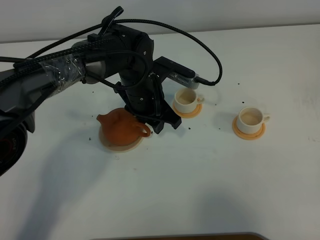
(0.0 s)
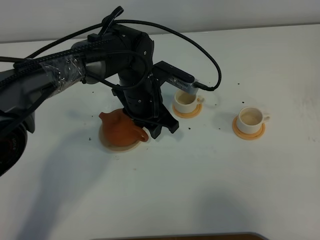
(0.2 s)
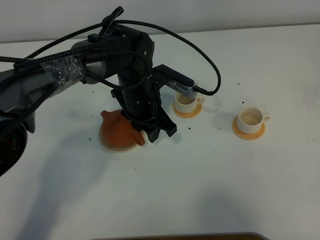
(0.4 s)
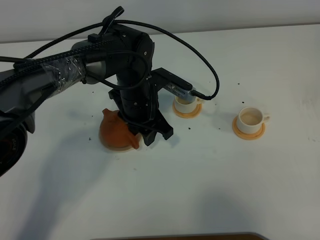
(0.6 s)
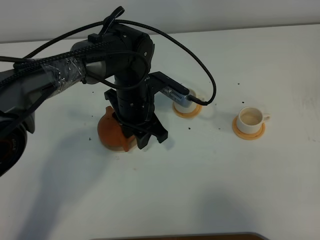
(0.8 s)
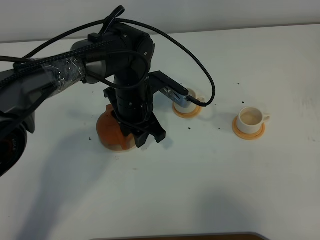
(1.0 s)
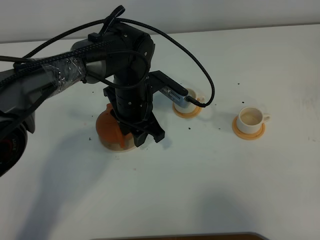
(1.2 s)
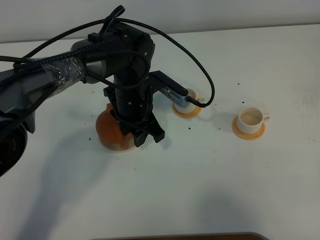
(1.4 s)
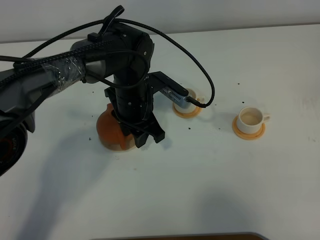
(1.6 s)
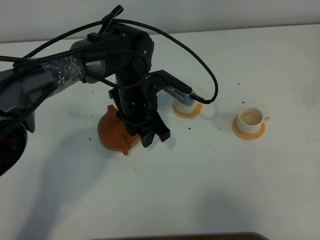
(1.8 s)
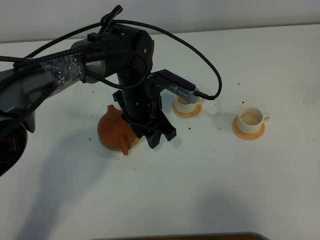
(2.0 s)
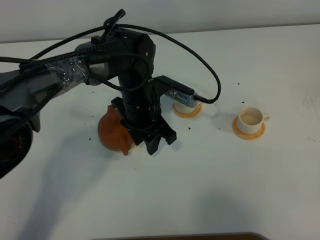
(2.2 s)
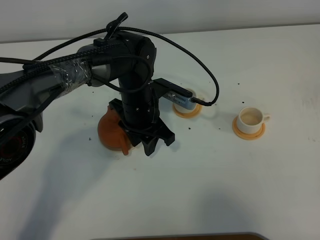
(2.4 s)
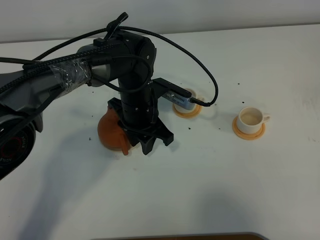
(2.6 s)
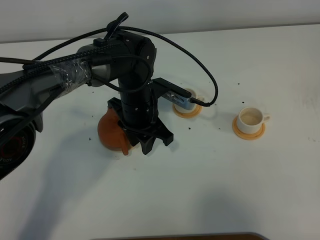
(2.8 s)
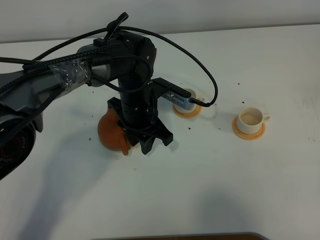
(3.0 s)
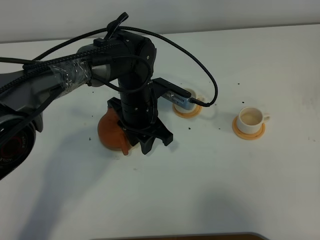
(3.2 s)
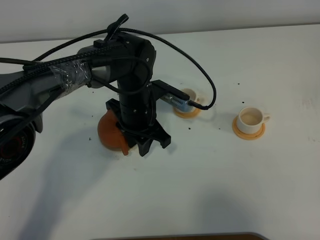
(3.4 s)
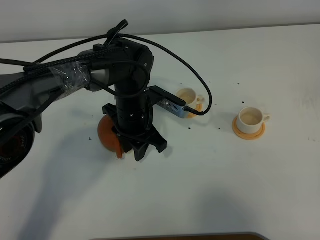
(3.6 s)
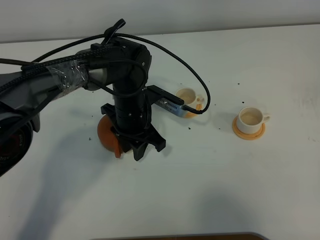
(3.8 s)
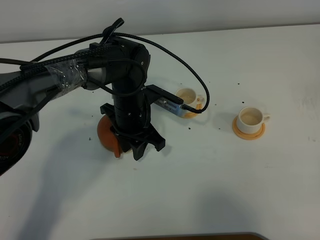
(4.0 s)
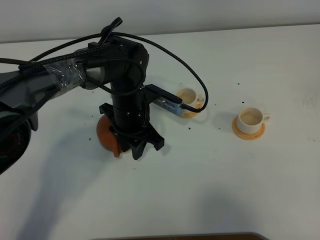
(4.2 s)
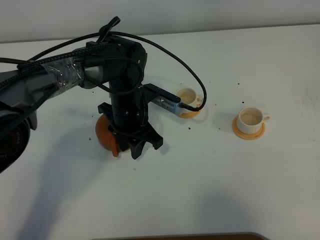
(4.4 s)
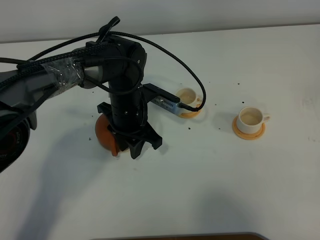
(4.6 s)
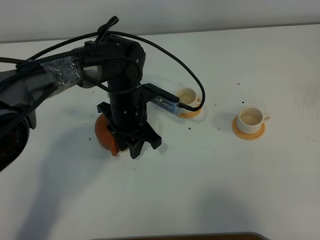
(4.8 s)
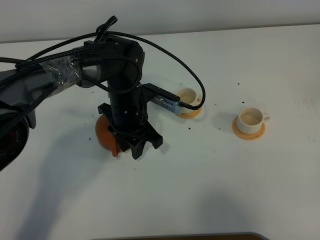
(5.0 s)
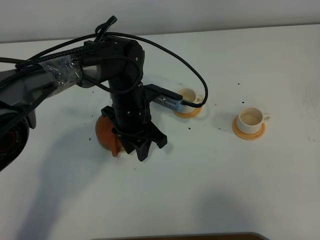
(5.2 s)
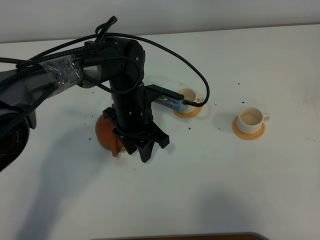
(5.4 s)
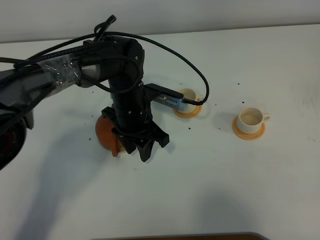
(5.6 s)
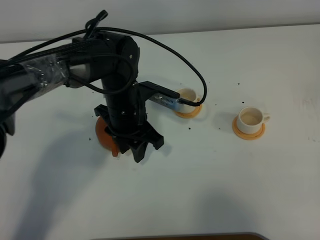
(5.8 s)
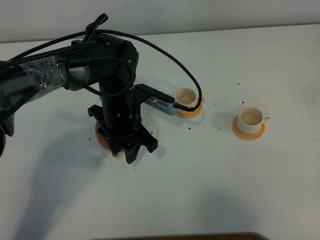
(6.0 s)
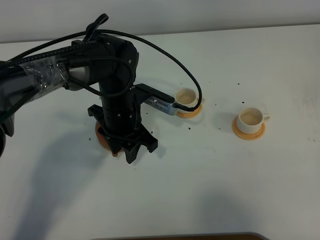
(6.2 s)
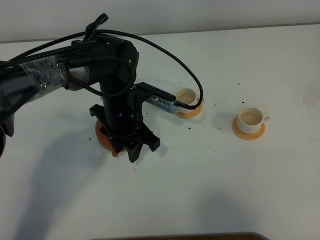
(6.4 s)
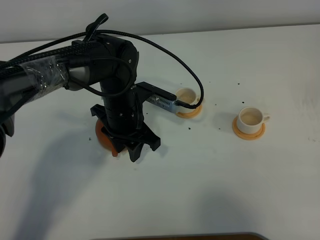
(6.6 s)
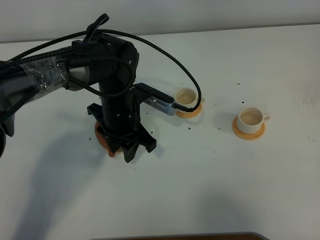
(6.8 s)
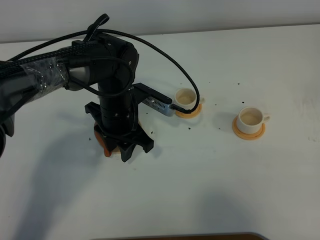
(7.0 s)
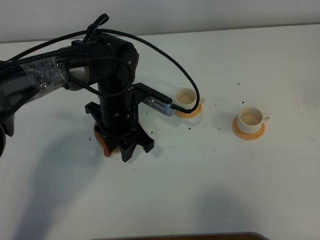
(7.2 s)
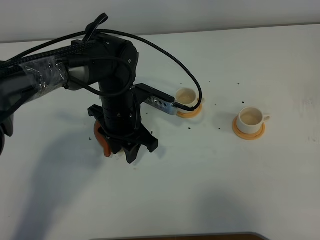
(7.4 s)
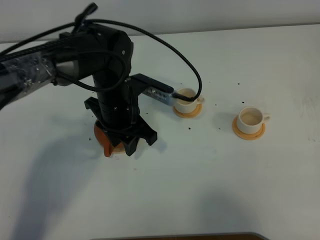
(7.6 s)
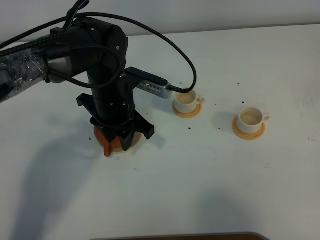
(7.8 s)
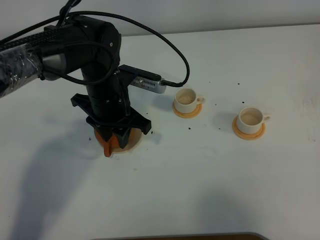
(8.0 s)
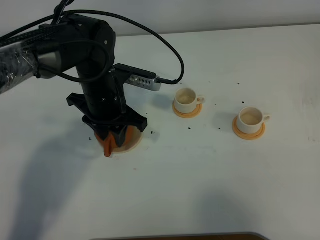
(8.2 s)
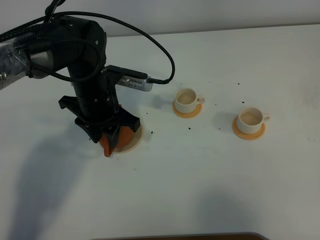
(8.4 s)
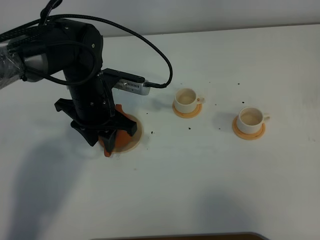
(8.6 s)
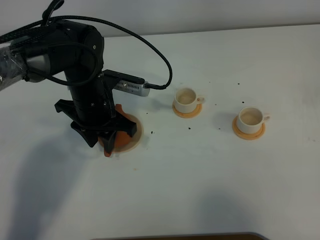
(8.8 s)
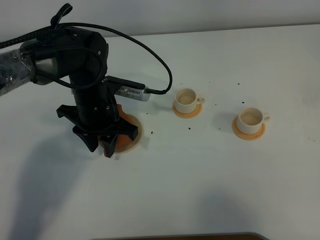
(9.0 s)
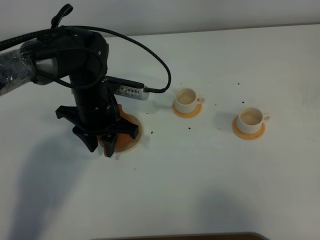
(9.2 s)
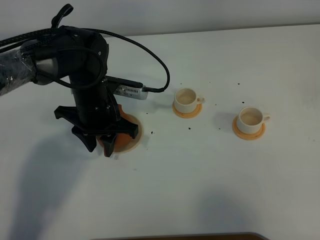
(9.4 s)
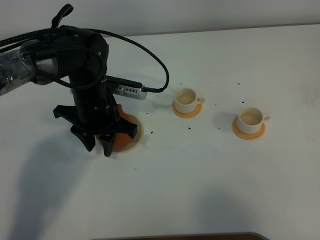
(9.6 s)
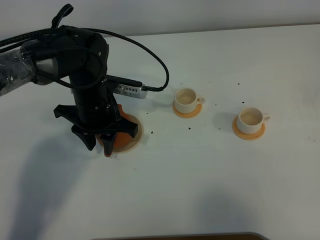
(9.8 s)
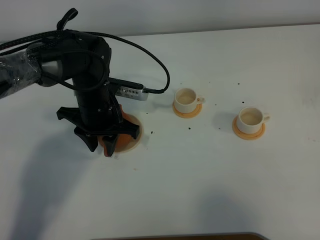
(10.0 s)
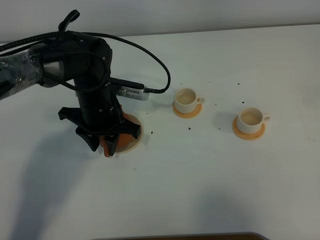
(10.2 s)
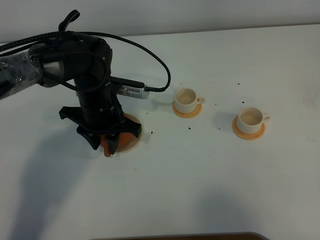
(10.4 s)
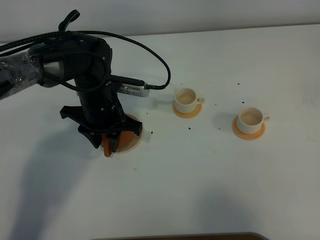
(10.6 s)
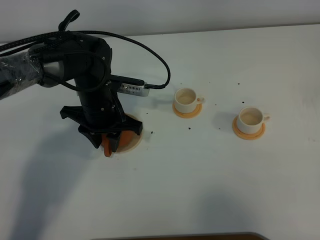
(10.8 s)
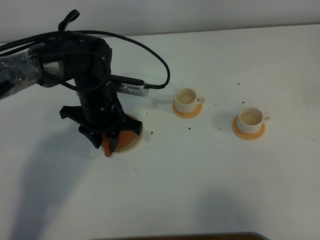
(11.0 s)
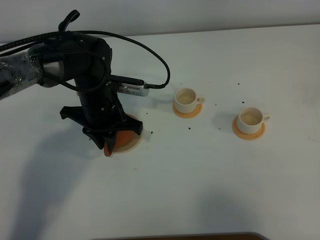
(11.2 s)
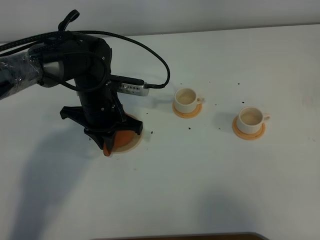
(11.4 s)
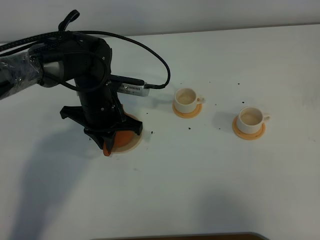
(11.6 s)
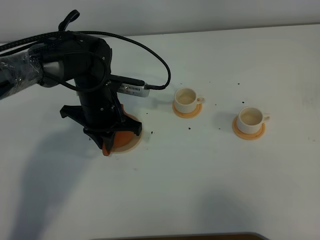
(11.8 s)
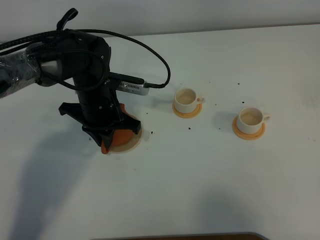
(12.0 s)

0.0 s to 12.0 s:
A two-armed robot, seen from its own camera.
Task of the whole recording: grasp the brown teapot and pour the tea into the two white teacups one by one, put the brown teapot back in its original place.
0.0 to 7.6 s: The grippers move only a little.
7.6 to 10.4 s: The grippers make only small movements.
10.4 to 12.0 s: The left gripper closes.

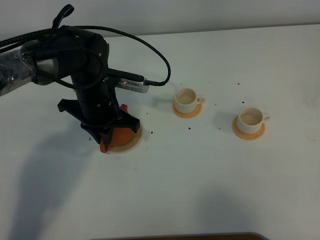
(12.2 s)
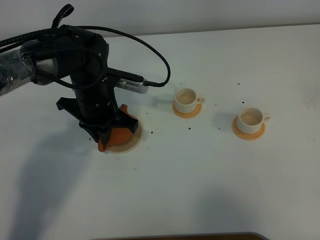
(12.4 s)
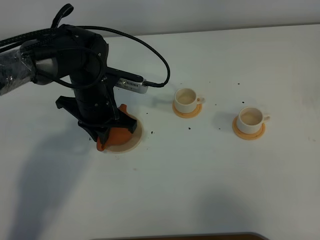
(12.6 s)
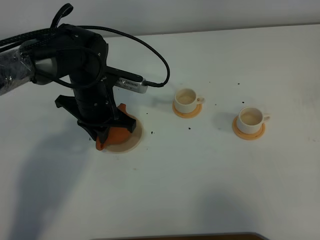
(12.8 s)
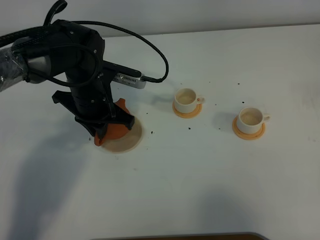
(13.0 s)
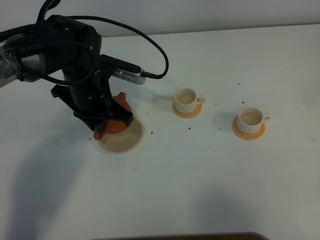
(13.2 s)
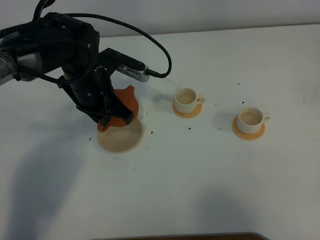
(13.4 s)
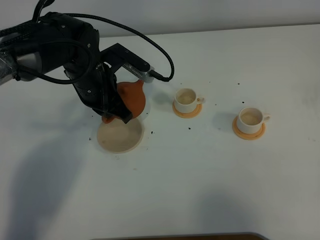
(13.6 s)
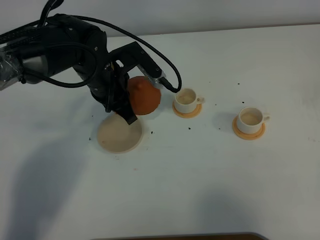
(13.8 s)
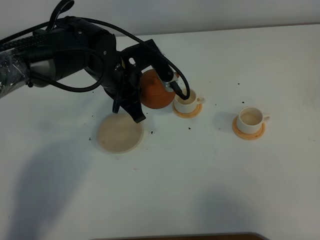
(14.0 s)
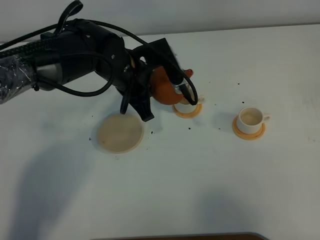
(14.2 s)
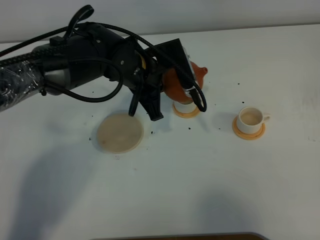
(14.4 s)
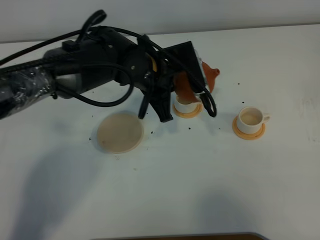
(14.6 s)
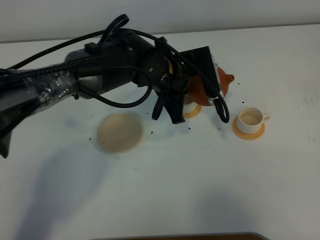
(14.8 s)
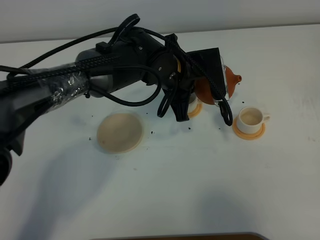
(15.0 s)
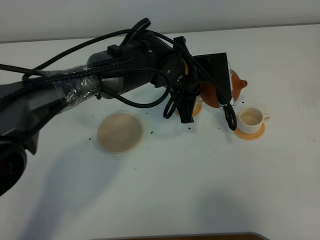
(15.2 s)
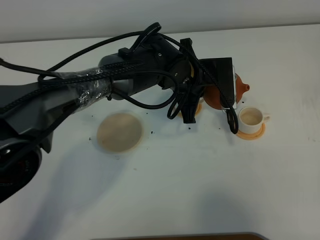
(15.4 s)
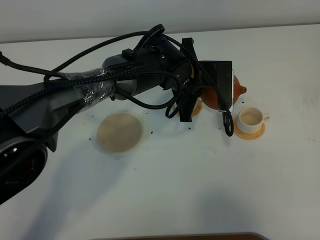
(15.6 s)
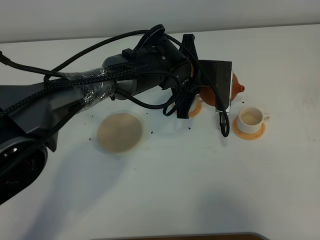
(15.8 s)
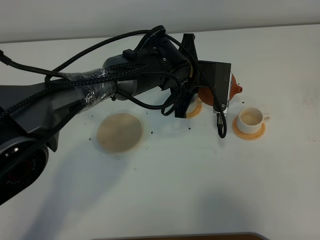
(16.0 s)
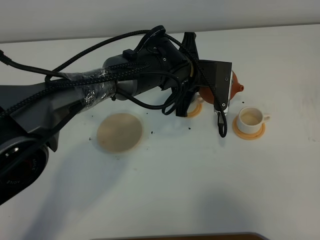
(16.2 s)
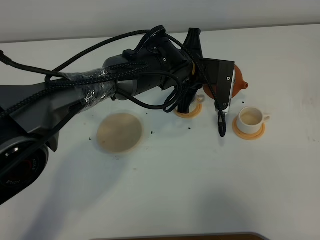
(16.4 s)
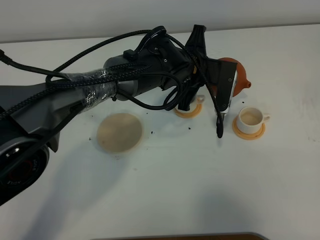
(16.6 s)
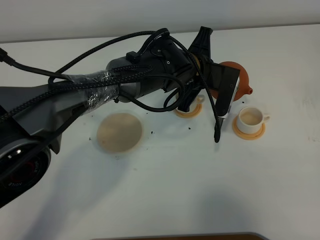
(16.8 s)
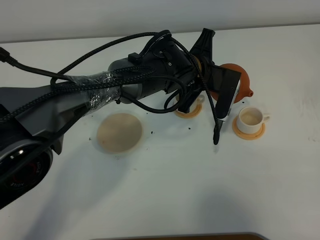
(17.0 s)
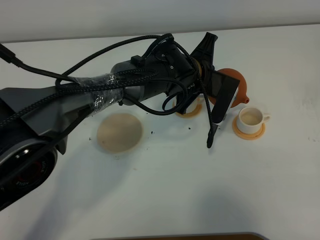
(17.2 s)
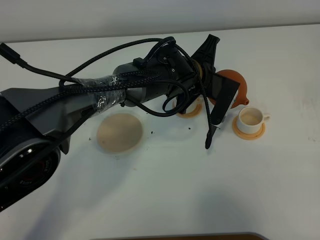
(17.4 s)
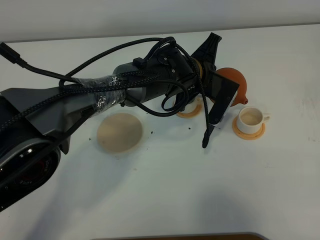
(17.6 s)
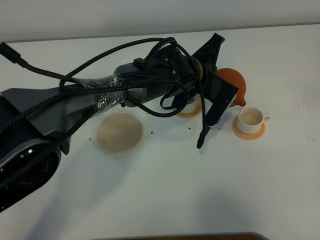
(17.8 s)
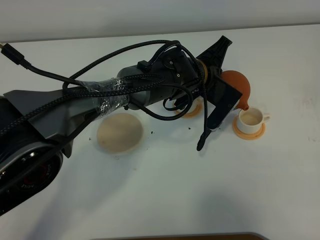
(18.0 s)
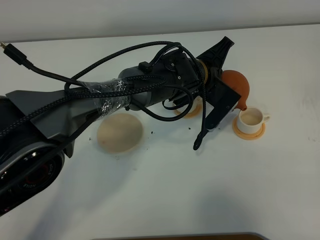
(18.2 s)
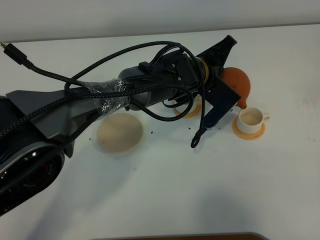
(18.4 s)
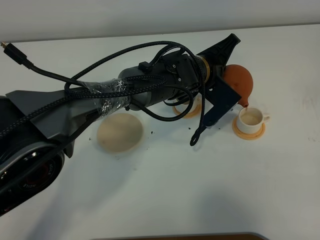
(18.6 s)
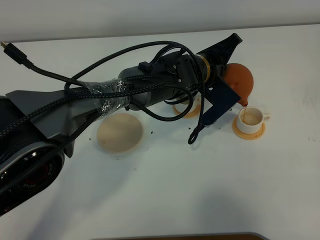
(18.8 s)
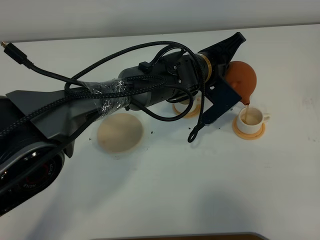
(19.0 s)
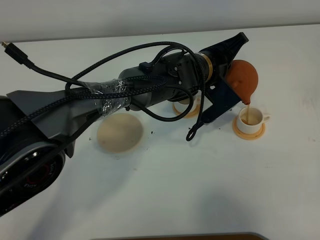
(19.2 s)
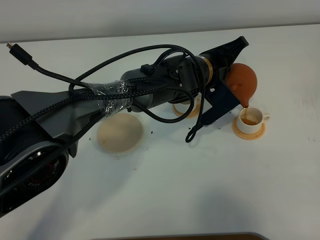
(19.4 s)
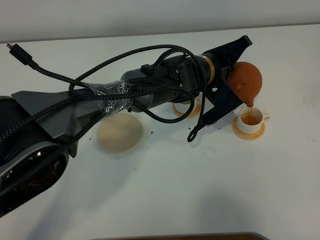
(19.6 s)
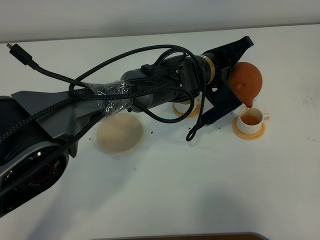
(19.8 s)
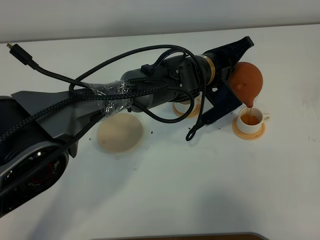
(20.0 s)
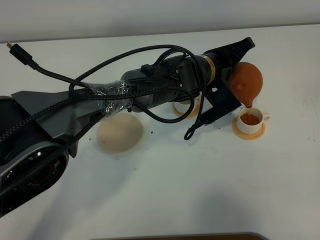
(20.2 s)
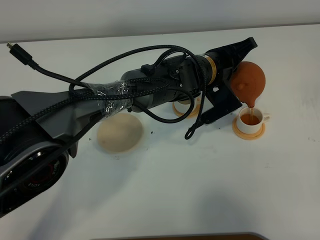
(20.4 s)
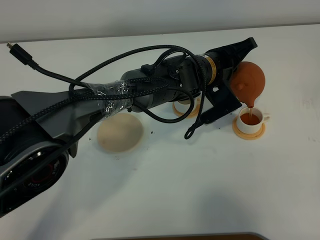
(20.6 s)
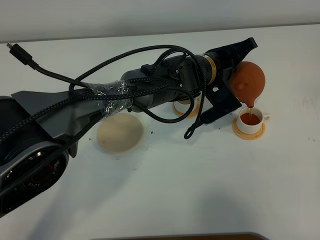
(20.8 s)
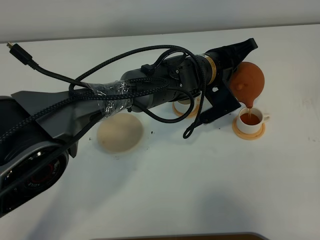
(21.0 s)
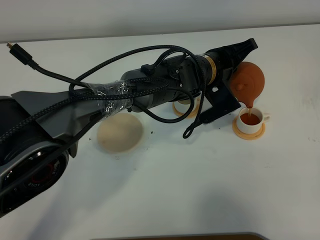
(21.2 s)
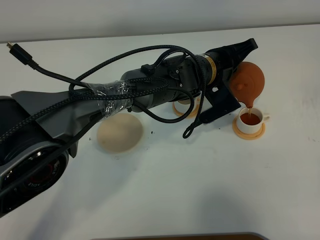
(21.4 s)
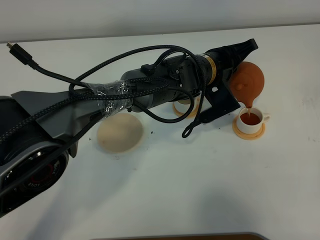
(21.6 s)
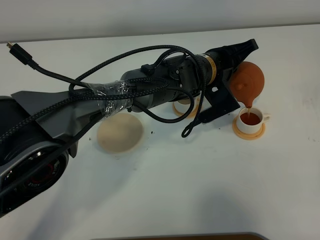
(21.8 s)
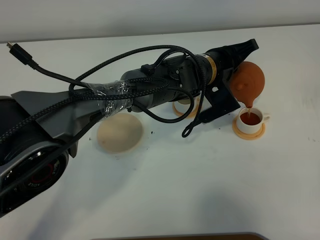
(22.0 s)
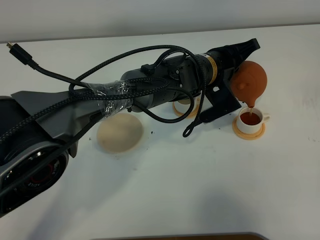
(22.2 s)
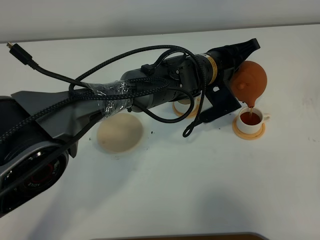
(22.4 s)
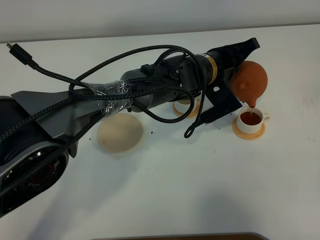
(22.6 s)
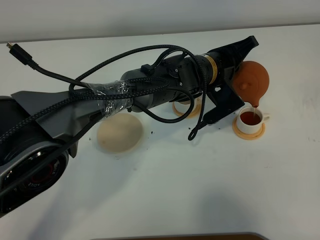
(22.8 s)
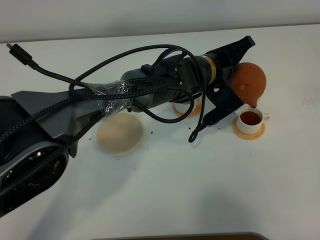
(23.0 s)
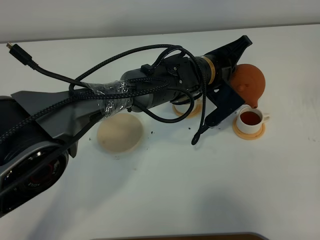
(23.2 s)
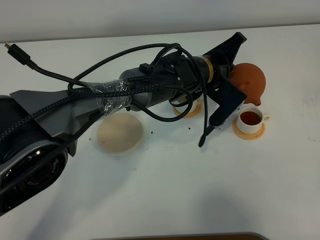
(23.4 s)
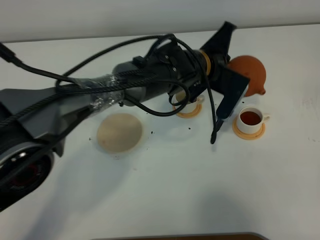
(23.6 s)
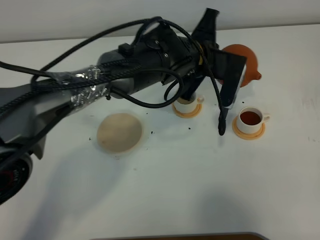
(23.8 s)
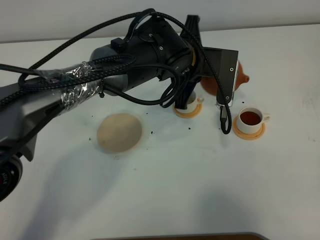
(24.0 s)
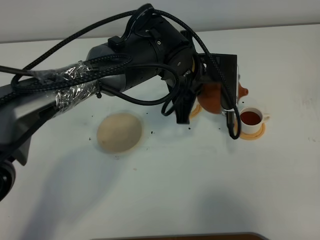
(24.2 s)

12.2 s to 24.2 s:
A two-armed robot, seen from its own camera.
Task of the whole recording: grasp the brown teapot and pour the tea into the two white teacups one by one, put the brown teapot back in its original place.
13.8 to 15.2 s: The left gripper travels to the right by approximately 15 cm.
18.2 to 19.8 s: The grippers stay close to where they were, moving slightly.
19.8 to 21.2 s: The grippers move only a little.
21.2 to 22.6 s: Neither gripper changes place.
22.6 to 24.2 s: The left gripper moves upward, approximately 5 cm.
